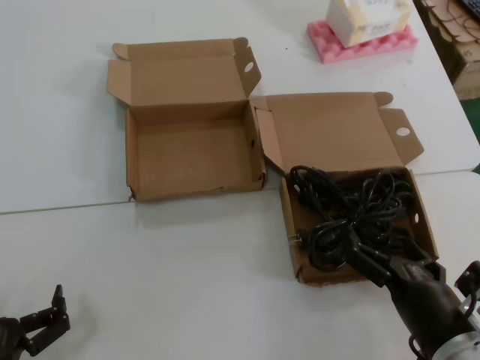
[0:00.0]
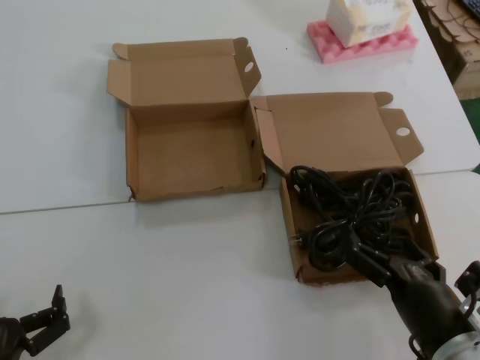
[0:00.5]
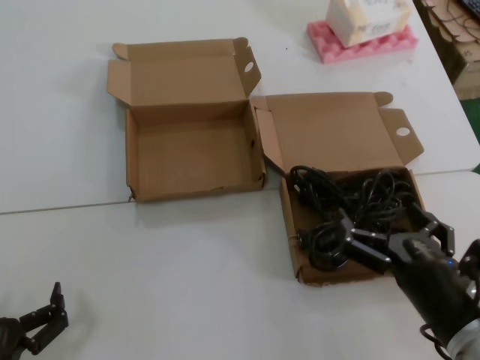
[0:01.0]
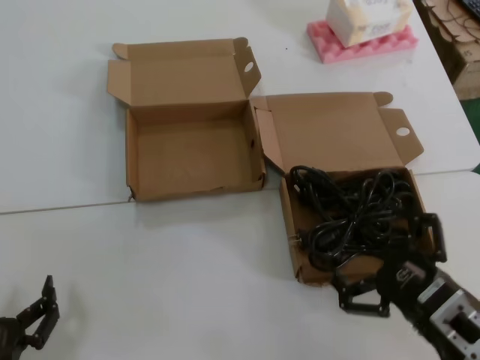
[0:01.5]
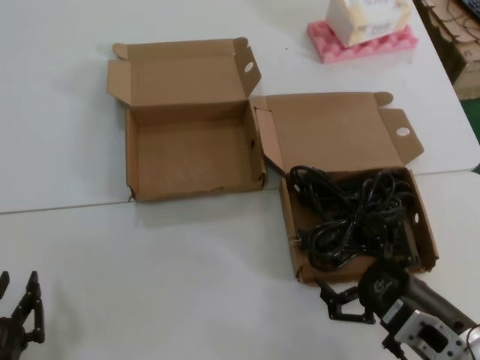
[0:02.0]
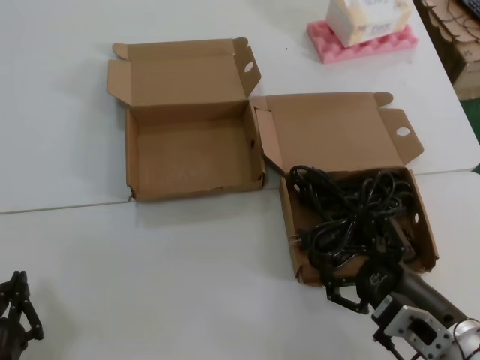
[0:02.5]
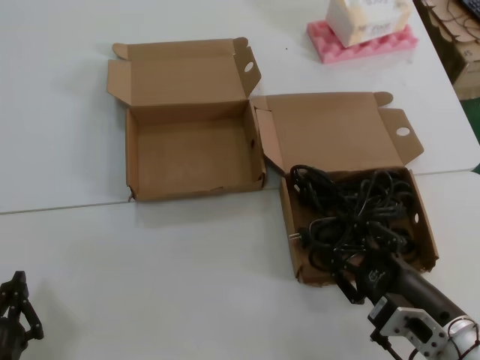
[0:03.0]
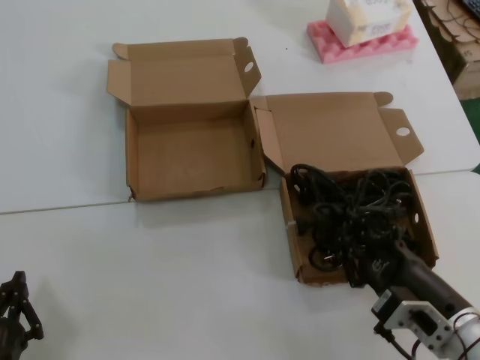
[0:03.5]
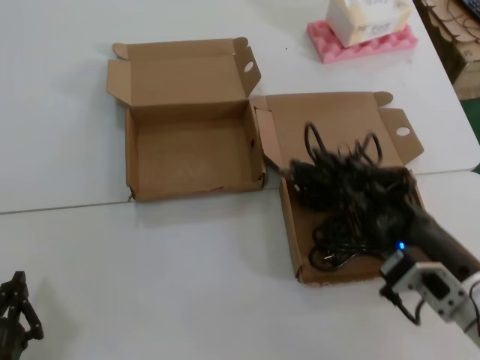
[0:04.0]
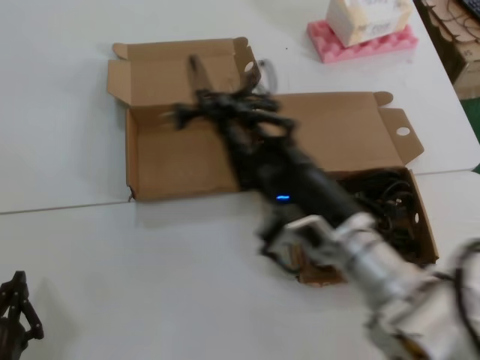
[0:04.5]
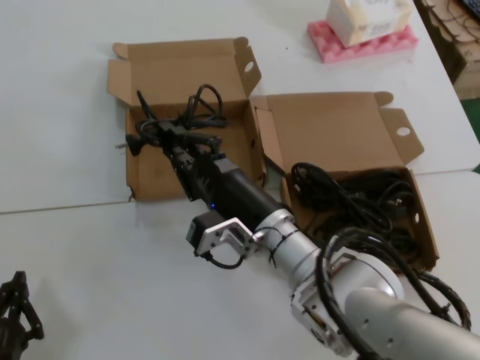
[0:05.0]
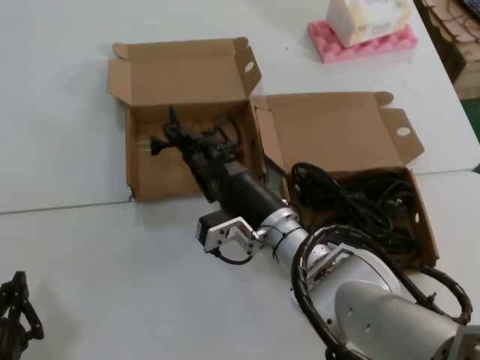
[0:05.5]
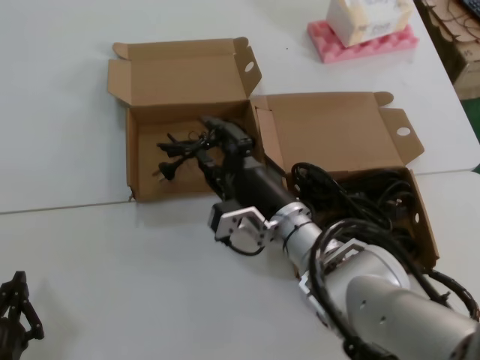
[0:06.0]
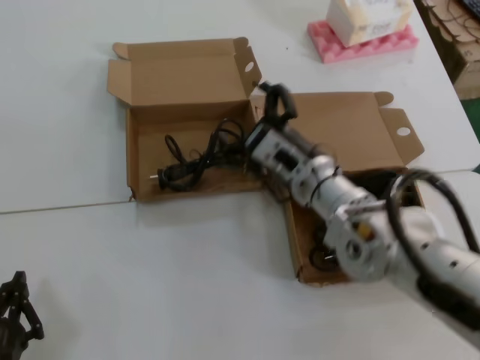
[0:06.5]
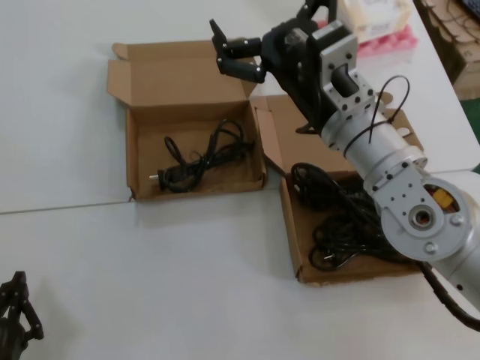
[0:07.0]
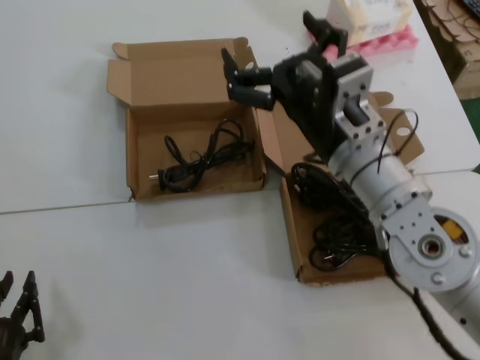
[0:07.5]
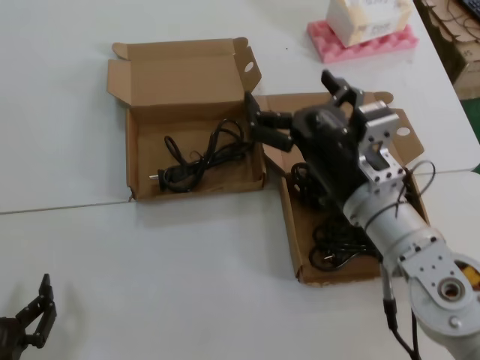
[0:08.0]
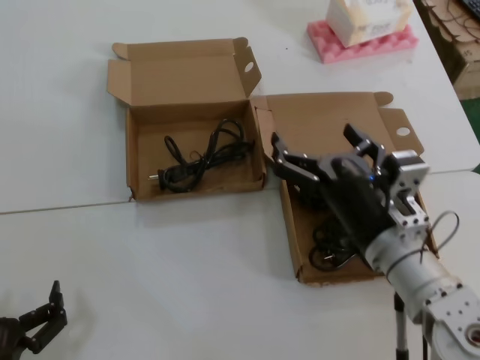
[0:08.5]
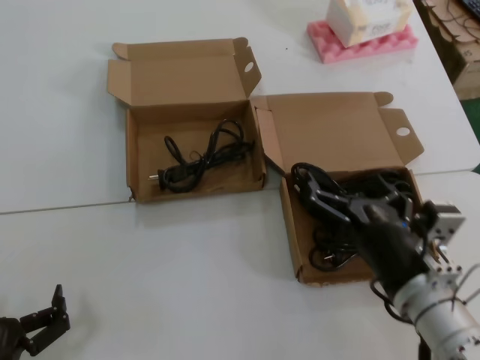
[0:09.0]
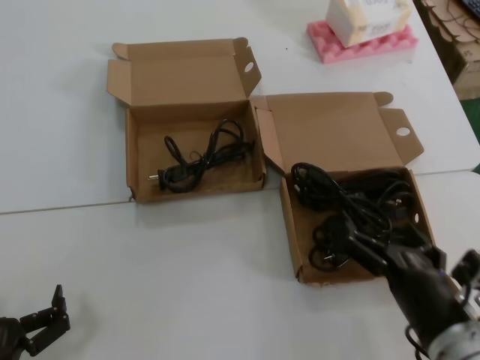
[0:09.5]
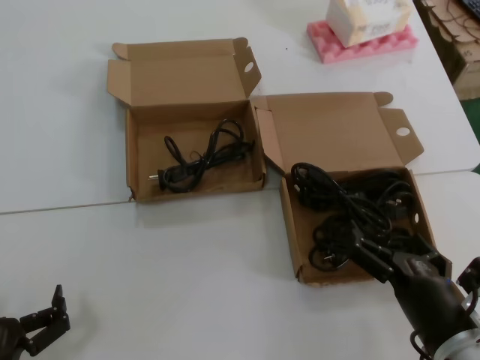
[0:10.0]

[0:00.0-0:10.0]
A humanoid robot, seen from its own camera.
Task of the whole recording: Pick up the power cord from the box containing it and place it in another box.
Step, 0:00.0 to 0:03.5: Grasp the data cable.
Step, 0:04.0 to 0:06.0: Place the data cable in the another box.
0:02.0 to 0:04.0: The right hand shifts by roughly 5 cm.
0:04.0 to 0:06.0: The right hand travels forward and to the left by some 25 cm.
0:06.0 to 0:08.0: The right hand goes some 15 cm upward, backward and to the right.
0:08.0 to 0:10.0: The right hand is displaced downward, backward and to the right by some 20 cm.
